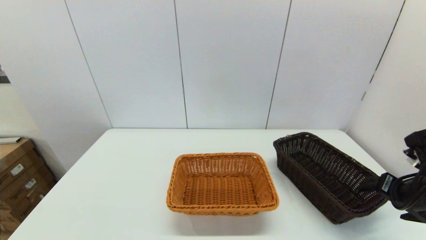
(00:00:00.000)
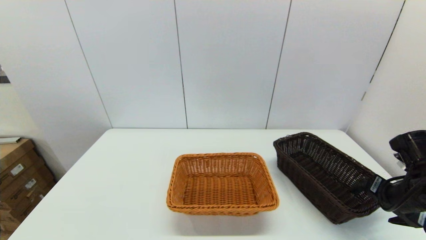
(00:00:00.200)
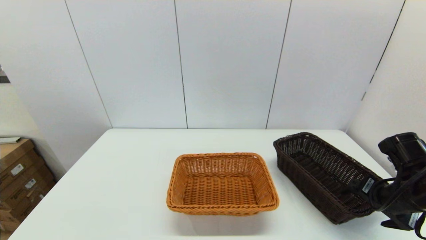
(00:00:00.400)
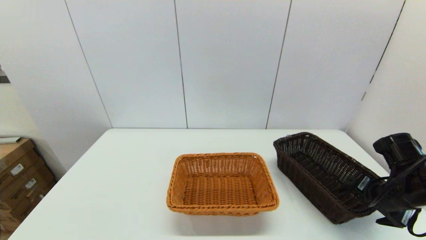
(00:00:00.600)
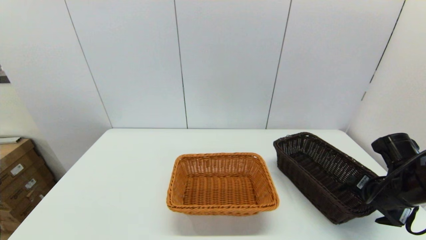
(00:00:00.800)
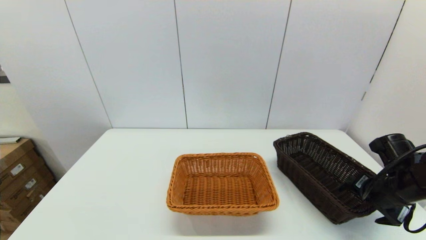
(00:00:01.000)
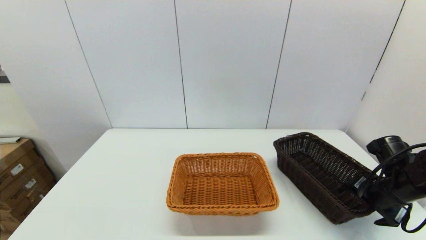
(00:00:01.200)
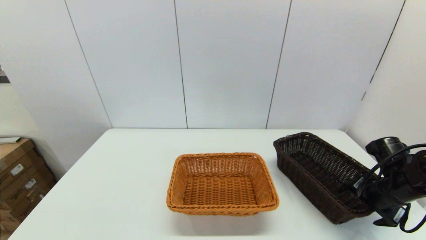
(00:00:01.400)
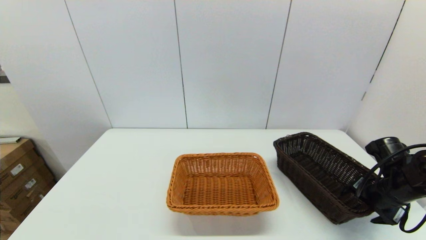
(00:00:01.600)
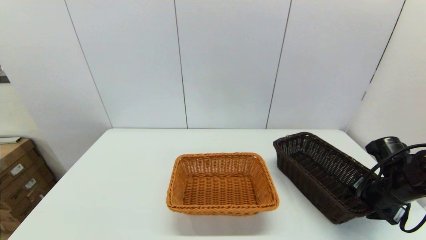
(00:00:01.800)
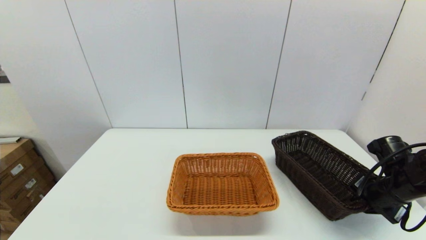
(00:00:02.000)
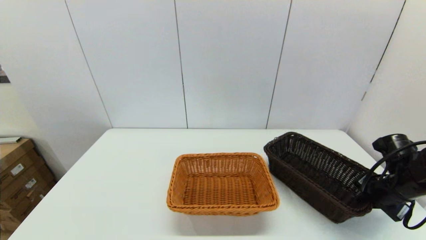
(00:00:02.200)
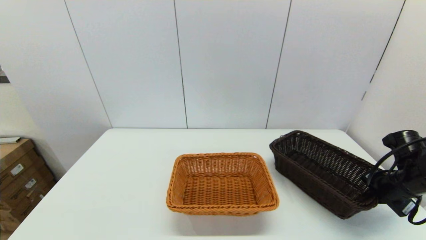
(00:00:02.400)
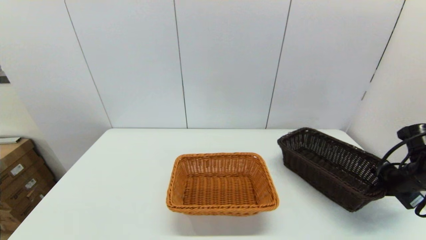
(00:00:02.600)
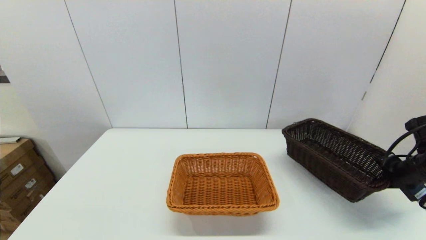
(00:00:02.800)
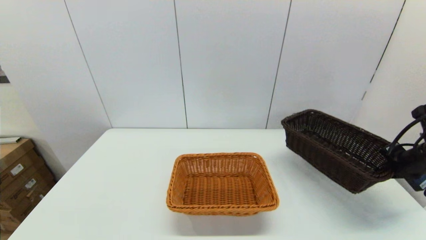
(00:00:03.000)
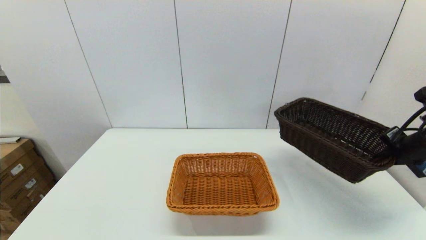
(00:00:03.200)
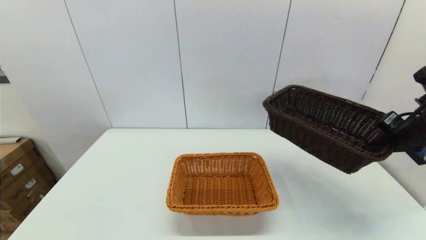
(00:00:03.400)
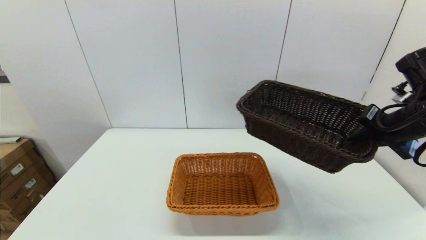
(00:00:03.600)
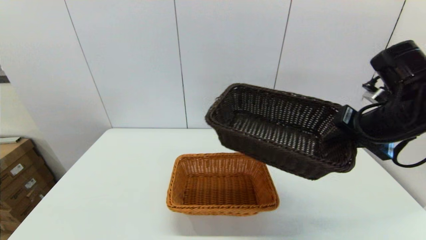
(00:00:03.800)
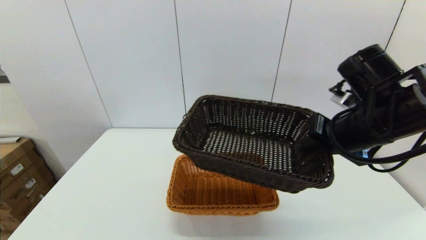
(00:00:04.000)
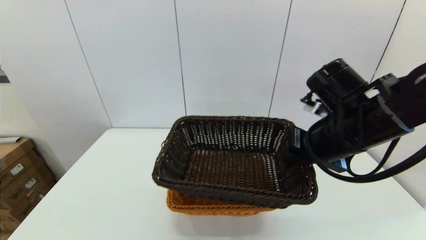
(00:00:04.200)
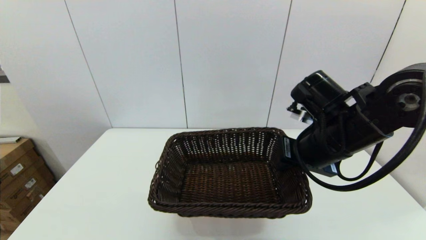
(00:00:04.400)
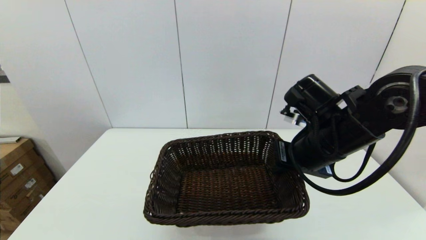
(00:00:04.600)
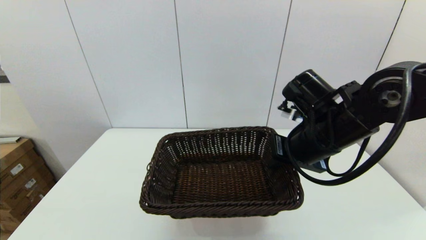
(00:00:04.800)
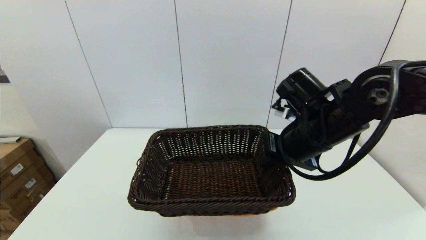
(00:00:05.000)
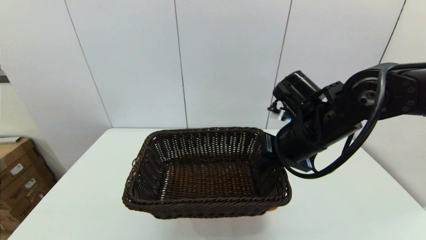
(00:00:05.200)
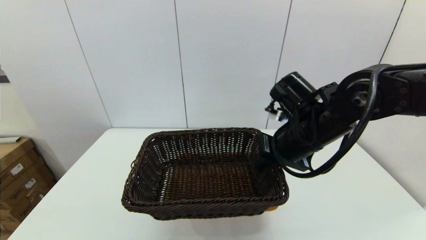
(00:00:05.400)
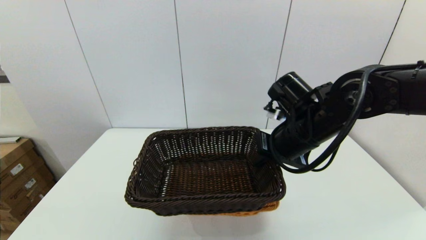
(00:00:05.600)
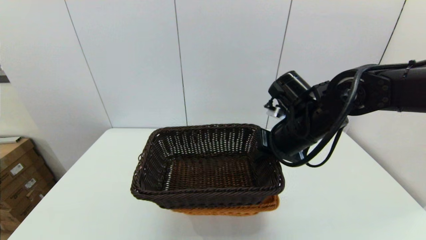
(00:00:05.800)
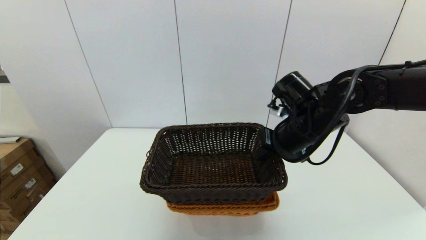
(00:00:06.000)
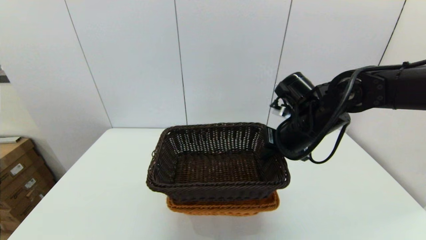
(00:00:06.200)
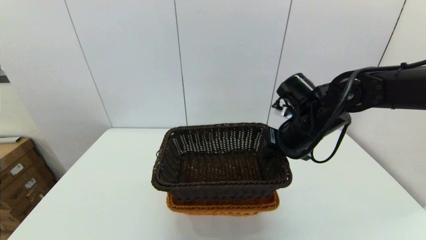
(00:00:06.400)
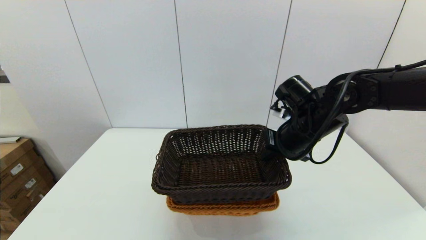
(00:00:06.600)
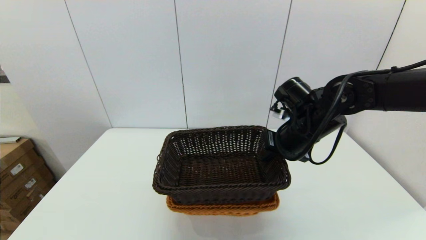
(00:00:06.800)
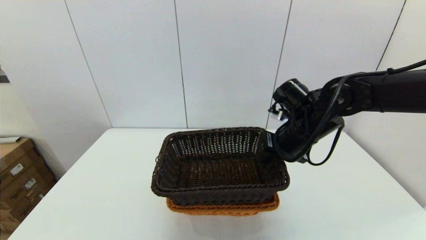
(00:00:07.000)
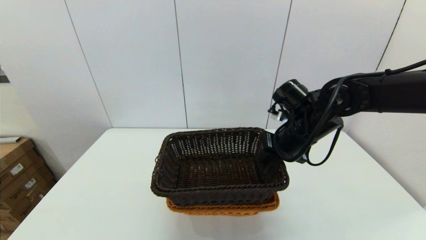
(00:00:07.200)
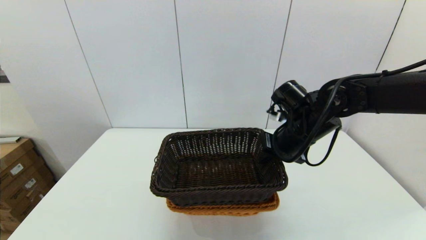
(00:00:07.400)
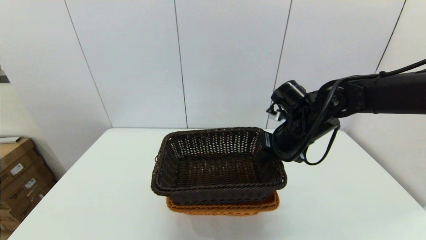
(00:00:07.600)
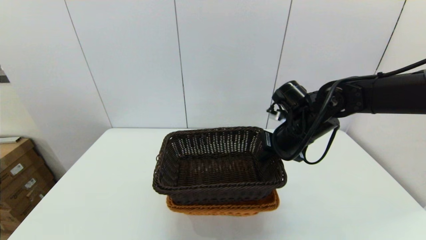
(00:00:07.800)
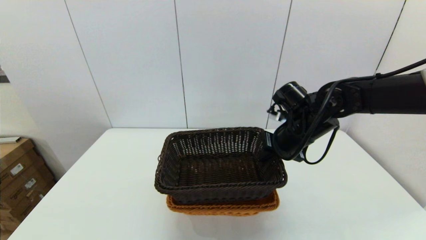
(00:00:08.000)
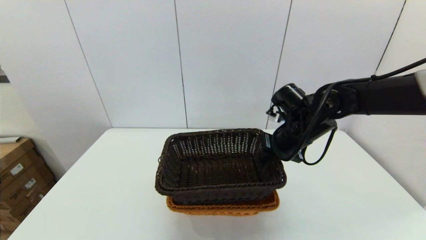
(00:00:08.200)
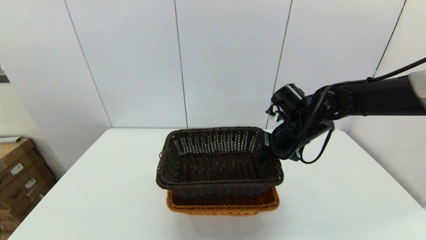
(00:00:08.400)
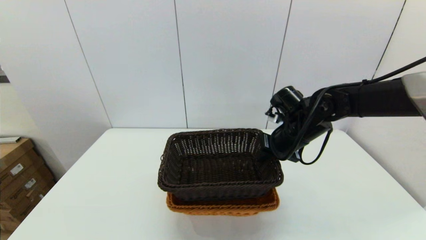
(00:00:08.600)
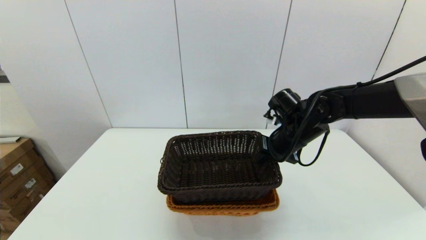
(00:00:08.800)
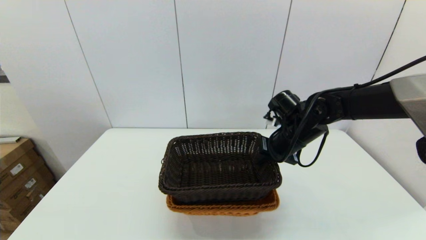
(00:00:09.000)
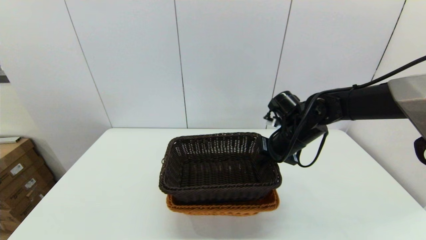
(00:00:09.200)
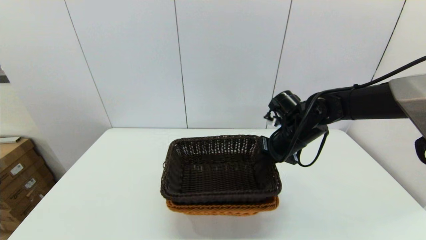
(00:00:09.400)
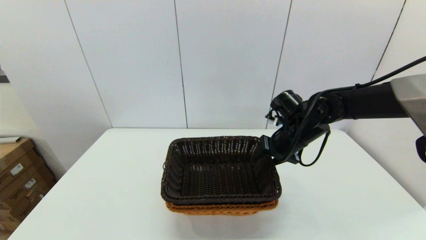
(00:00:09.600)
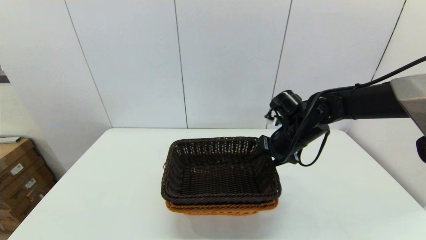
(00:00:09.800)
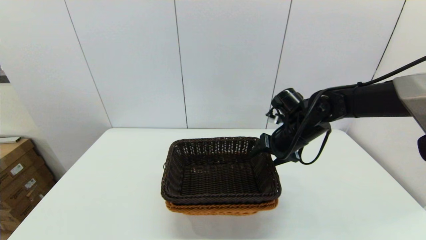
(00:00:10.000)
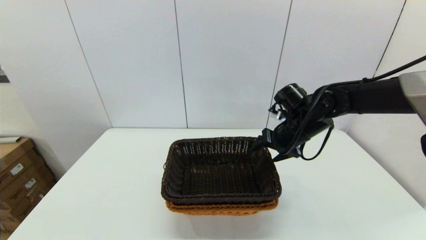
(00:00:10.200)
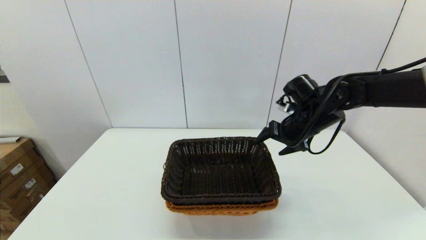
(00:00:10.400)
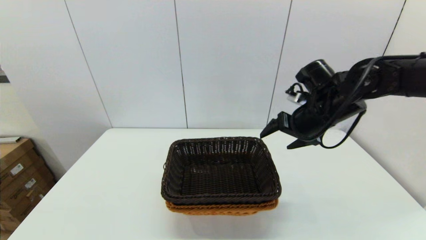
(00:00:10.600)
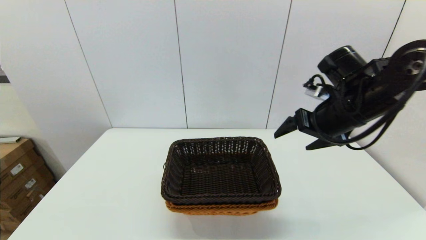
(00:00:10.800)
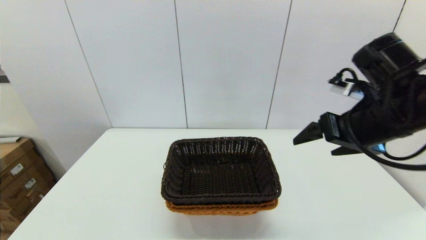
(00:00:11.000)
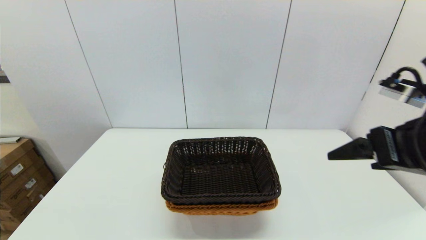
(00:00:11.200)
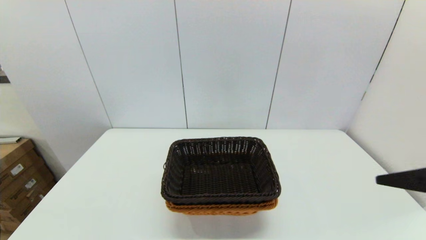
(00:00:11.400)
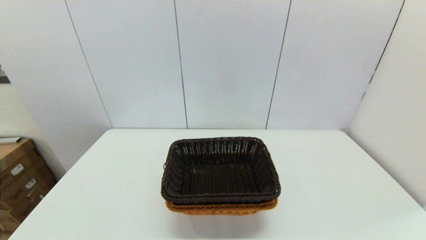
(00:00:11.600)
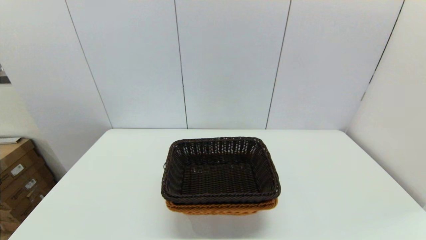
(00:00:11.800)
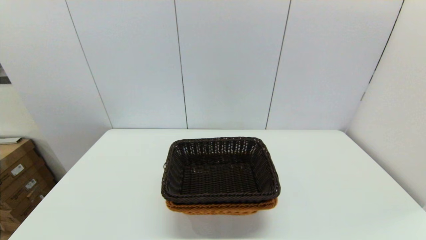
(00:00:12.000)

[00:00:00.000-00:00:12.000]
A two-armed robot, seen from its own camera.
Task of the whole recording: stack a basket on top of another basket.
Step, 00:00:00.000 to 00:00:02.400: Grasp the dark basket with the right gripper.
Step, 00:00:02.600 to 00:00:10.400: Place the dark basket into the light color basket with the right gripper.
00:00:00.000 to 00:00:01.600: The right gripper heads downward, covering approximately 5 cm.
00:00:01.600 to 00:00:03.000: The right gripper travels upward and to the right by approximately 10 cm, and closes up.
00:00:03.000 to 00:00:04.400: The right gripper moves to the left, about 25 cm.
00:00:04.400 to 00:00:06.000: The right gripper shifts approximately 5 cm forward.
00:00:06.000 to 00:00:07.600: The grippers make only small movements.
00:00:07.600 to 00:00:09.000: The grippers move only a little.
00:00:09.000 to 00:00:10.400: The right gripper opens.
00:00:10.400 to 00:00:12.000: The right gripper heads backward, covering approximately 40 cm.
